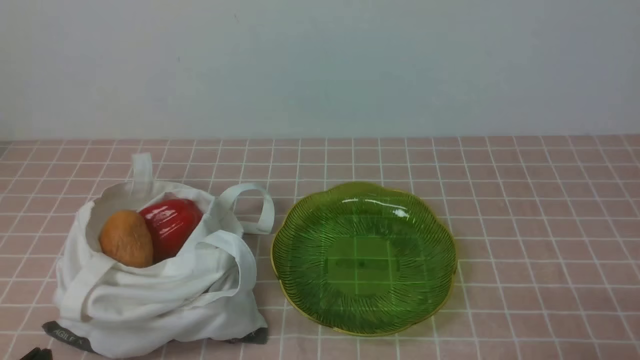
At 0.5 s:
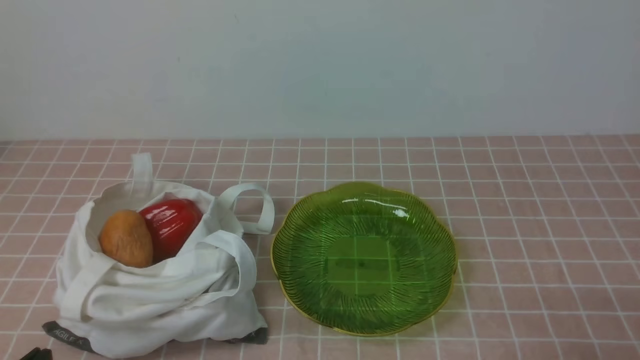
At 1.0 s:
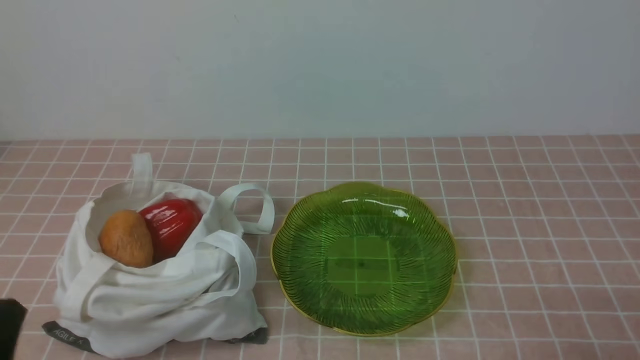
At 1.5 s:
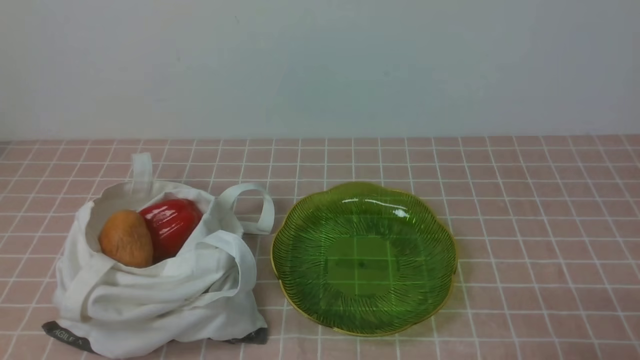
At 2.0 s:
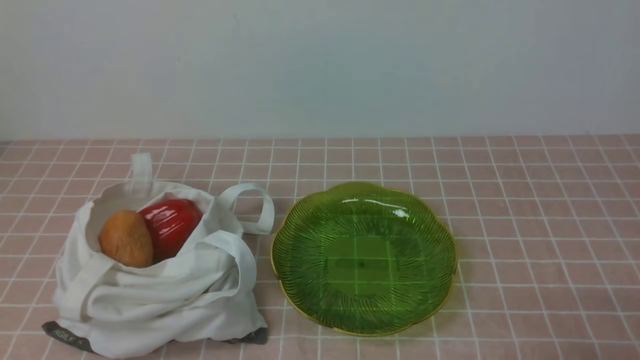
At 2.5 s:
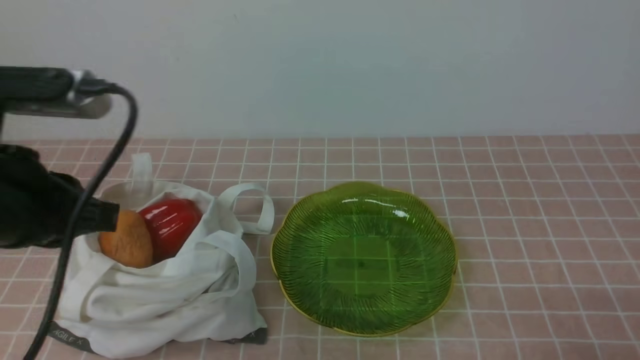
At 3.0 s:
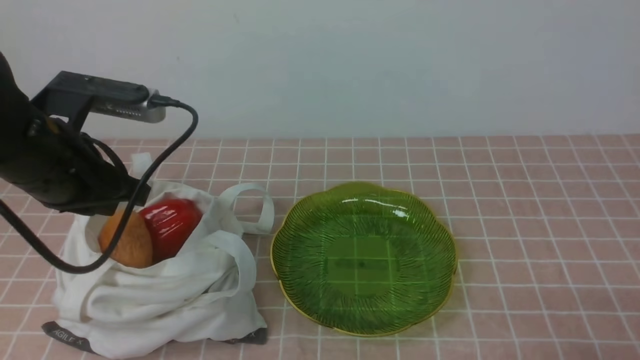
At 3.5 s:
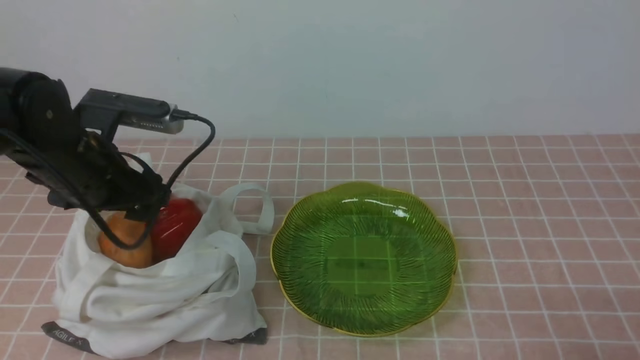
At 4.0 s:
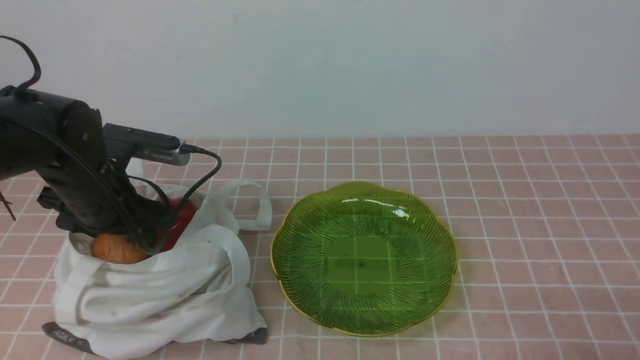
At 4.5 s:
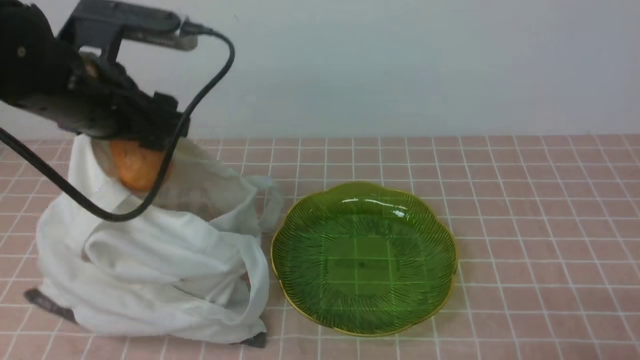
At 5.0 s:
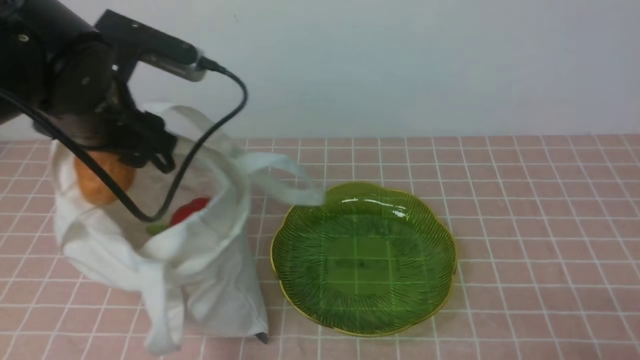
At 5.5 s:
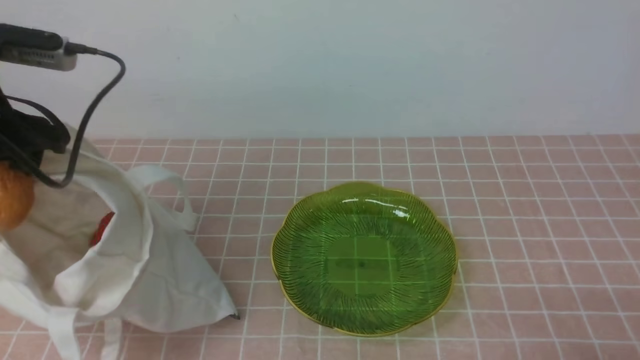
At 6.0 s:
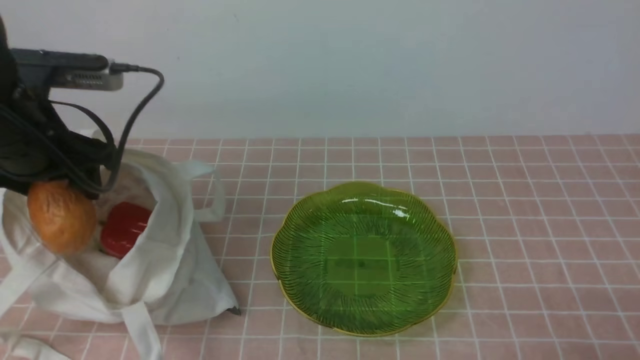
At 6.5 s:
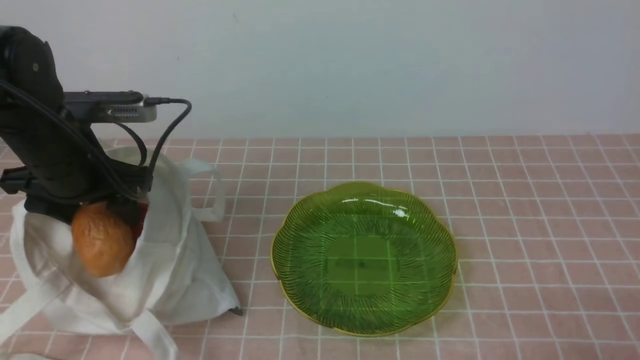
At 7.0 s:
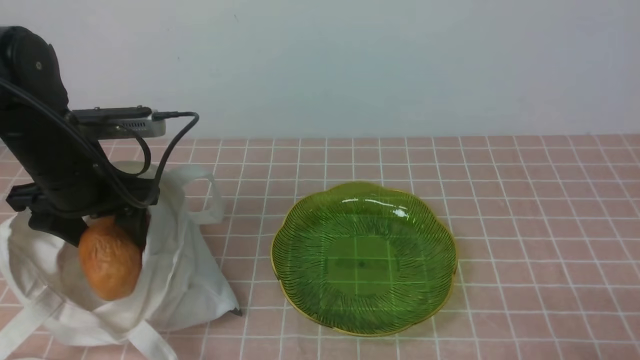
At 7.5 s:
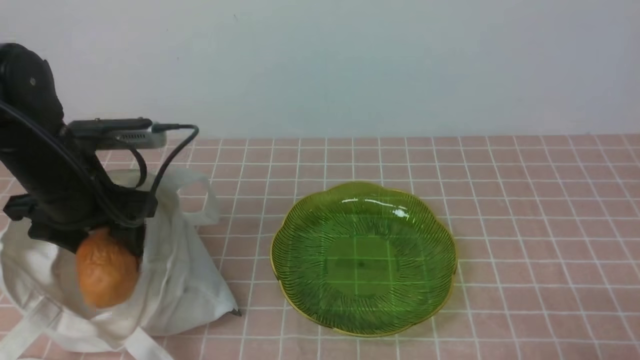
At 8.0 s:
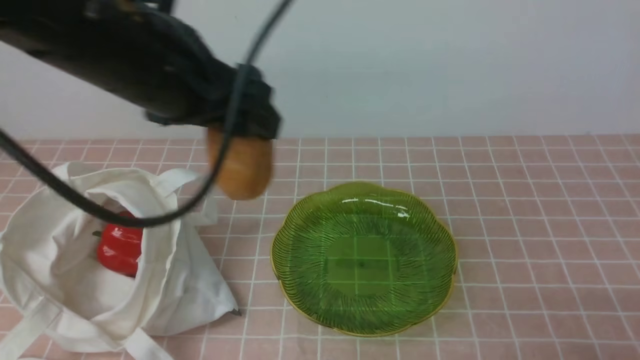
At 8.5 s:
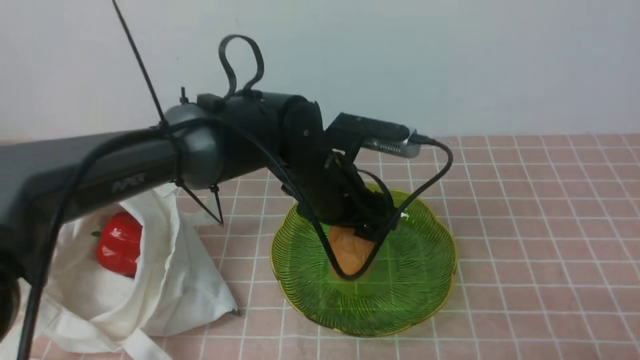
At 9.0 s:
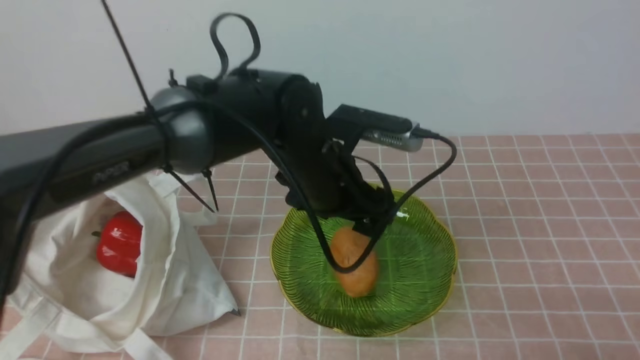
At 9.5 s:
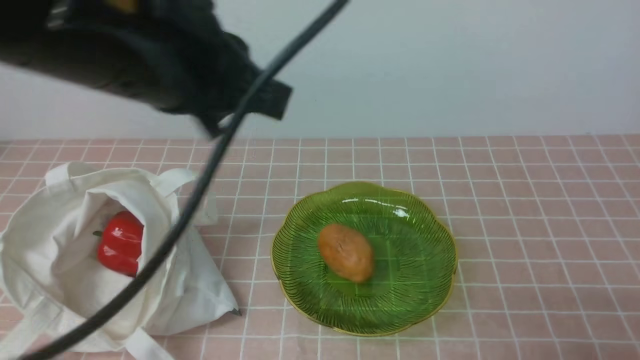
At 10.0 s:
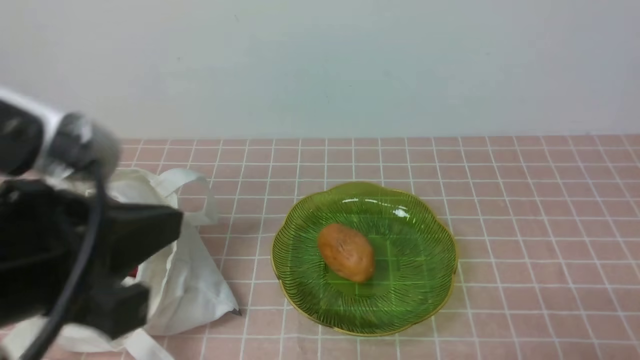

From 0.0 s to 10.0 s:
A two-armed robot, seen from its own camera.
Task of the whole recording: take vegetables from bag on pink coffee tablecloth place on plate.
Step, from 0.0 s to 4.0 s: Grasp the potato with left gripper.
Step, from 4.5 s to 9.0 s: Place the potato on the plate with left gripper.
From 2.0 s to 4.0 s: The left gripper moves forward, approximately 25 cm, and opens.
From 4.0 s to 6.0 s: The left gripper moves upward, some 10 cm.
From 6.0 s to 8.0 s: The left gripper heads to the right, covering some 15 cm.
From 8.0 s to 10.0 s: The left gripper travels backward by approximately 20 cm, and closes its fingers.

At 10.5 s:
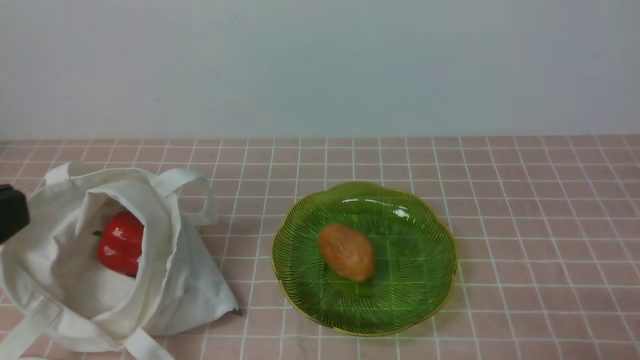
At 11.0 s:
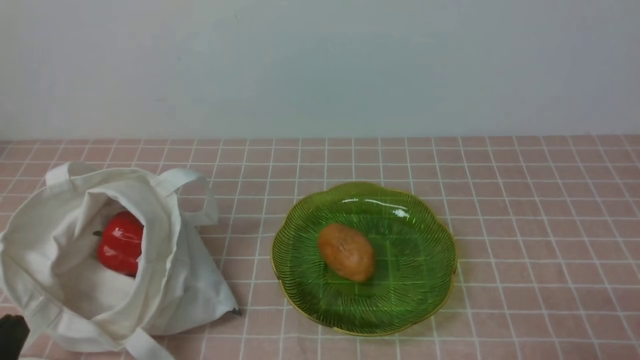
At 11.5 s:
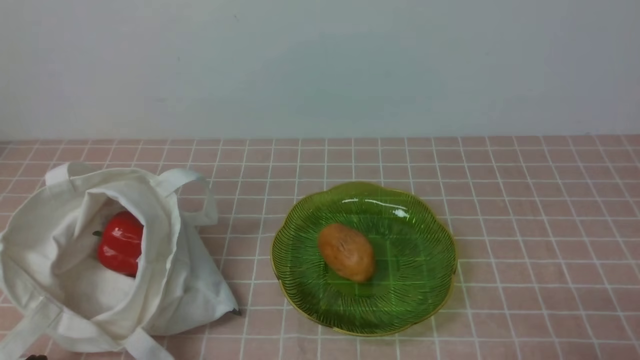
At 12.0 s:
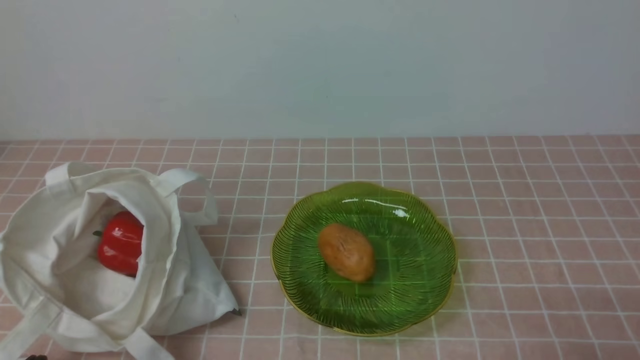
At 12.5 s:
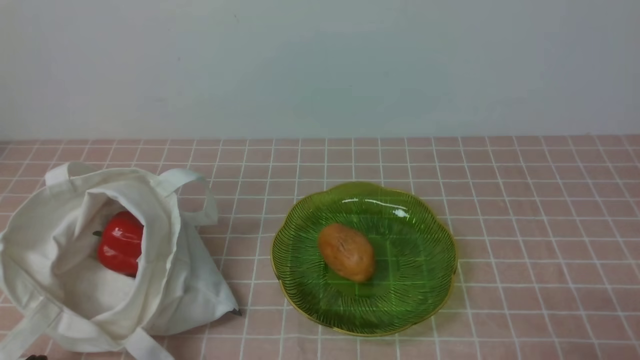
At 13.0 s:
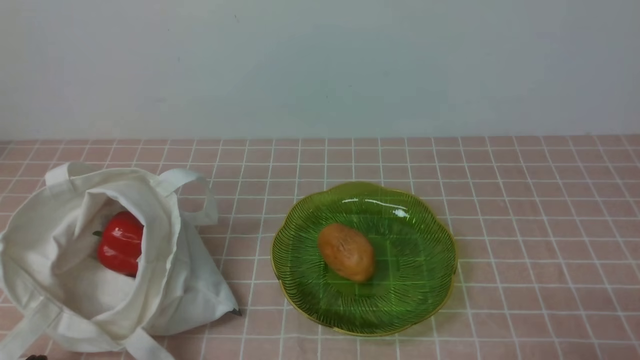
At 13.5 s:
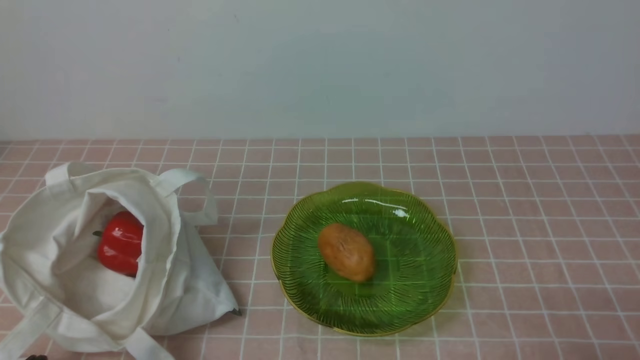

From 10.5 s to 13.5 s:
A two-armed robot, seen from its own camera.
Task of the whole recording: take vegetables from bag on pink coffee tablecloth place on plate.
From 10.5 s to 12.0 s: The left gripper shifts roughly 20 cm downward.
From 12.0 s to 13.5 s: Both grippers stay about where they are.
